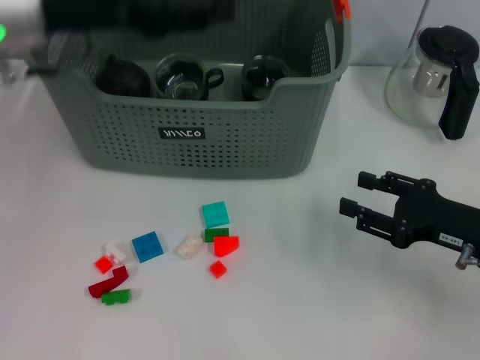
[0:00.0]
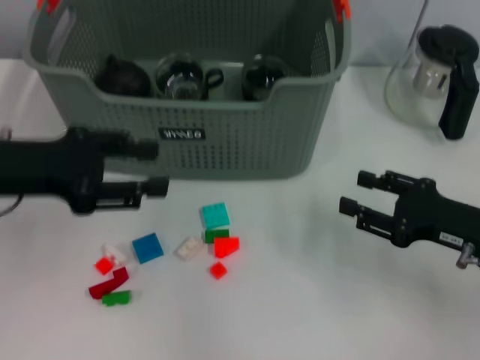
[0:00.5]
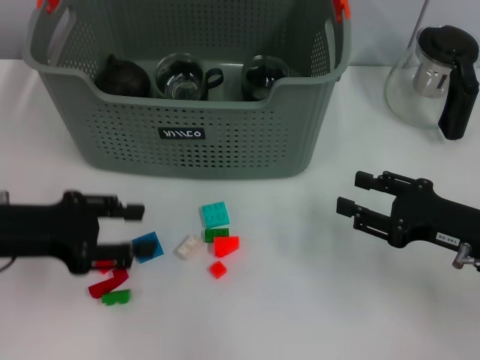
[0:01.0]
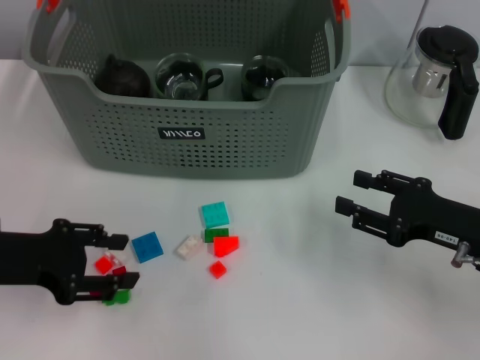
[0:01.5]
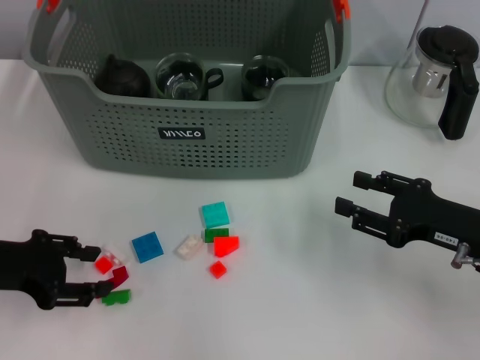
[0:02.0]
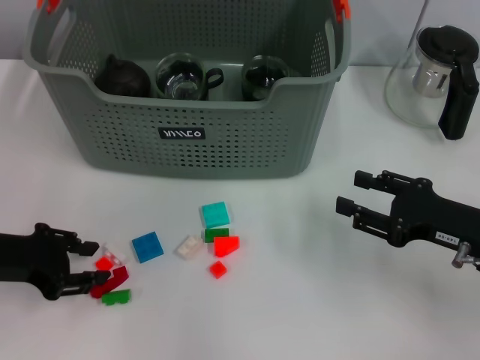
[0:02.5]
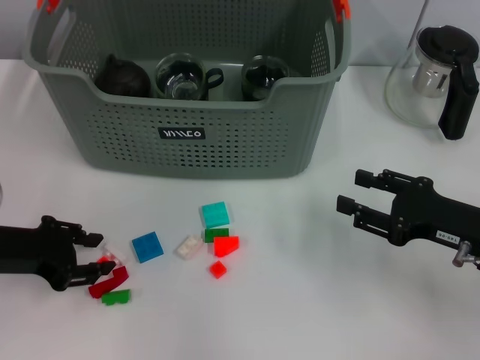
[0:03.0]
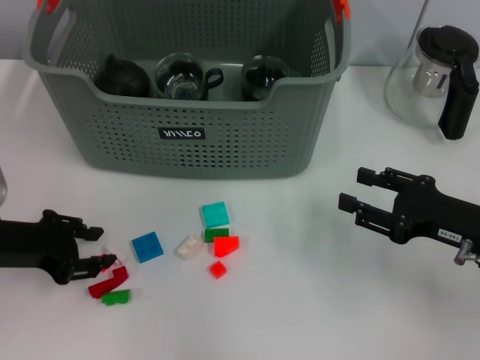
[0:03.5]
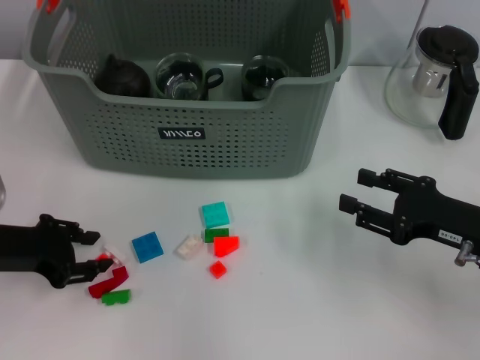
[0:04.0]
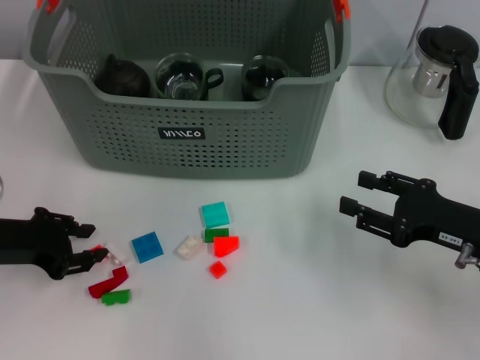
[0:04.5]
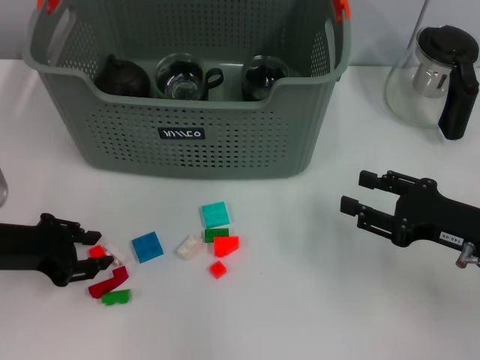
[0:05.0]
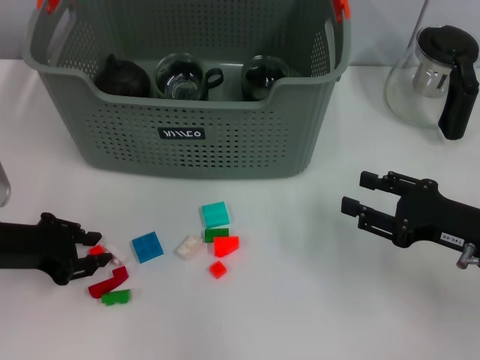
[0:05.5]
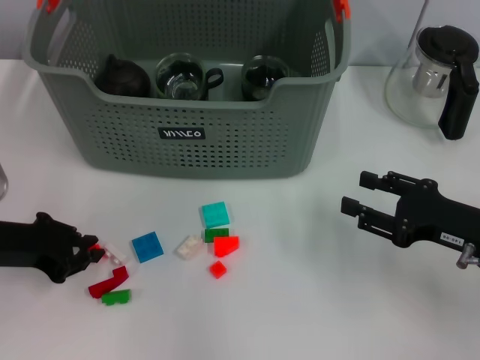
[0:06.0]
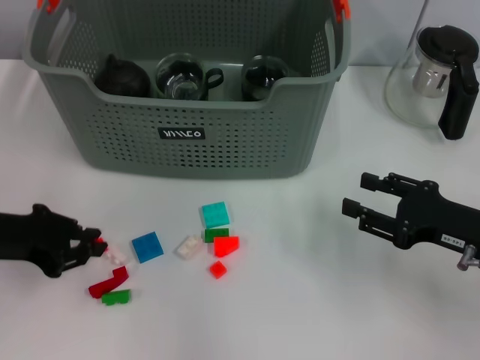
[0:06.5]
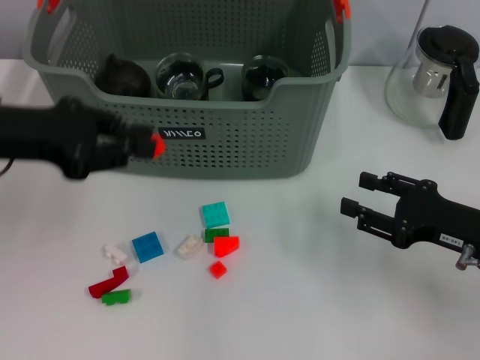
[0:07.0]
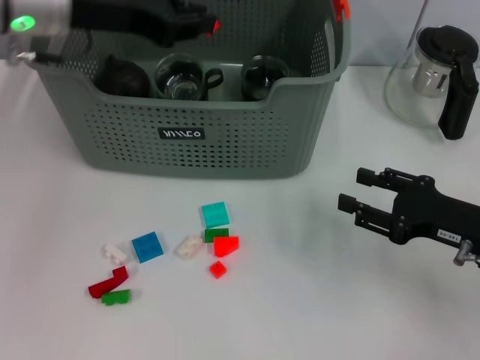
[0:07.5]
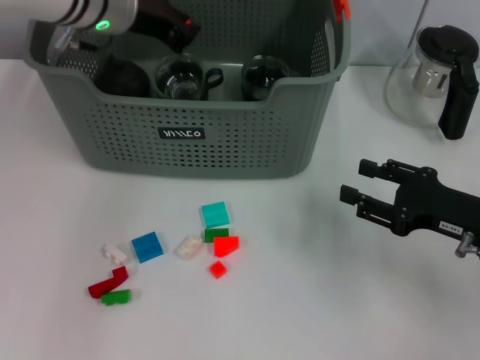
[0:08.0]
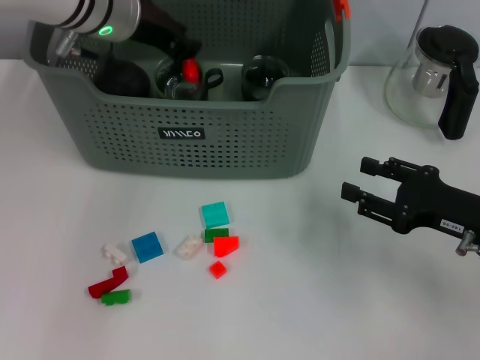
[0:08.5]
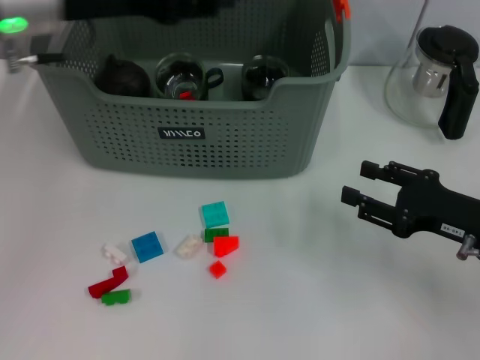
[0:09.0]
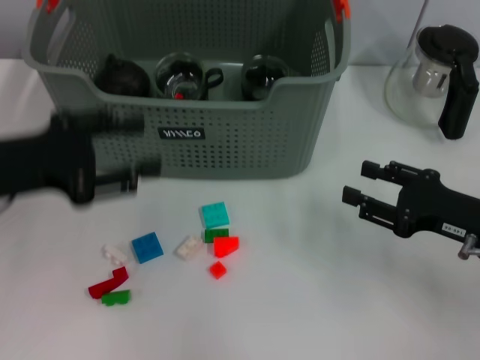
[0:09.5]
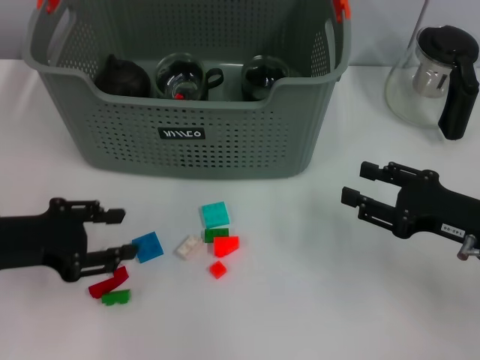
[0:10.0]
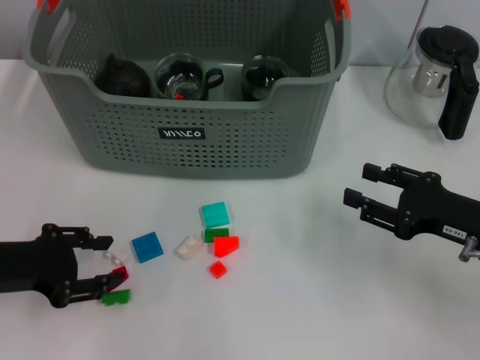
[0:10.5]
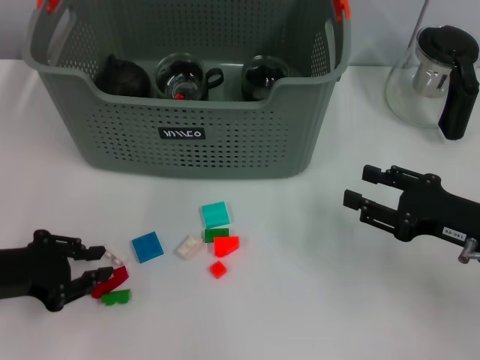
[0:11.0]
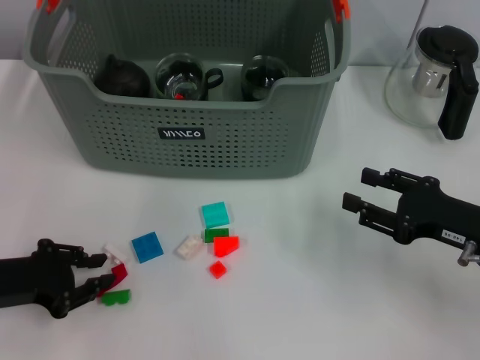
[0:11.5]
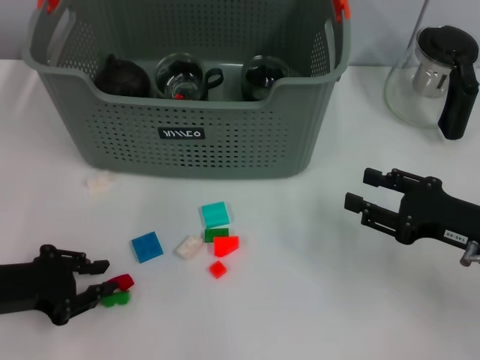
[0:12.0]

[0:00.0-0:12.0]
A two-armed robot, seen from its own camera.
Task of the whole recording: pick up the teacup on the table and place it into the storage bin, pick up the block on the table and place it into the storage bin.
Step, 0:00.0 to 0:05.5: Grasp the orange block with left gripper.
Step, 0:06.0 to 0:08.5: Place the orange block in the storage box with left gripper.
0:00.0 to 0:02.0: The left gripper shifts roughly 20 cm downward, backward and to the left.
0:02.0 to 0:04.0: The grippers stay close to where they were, moving slightly.
0:04.0 to 0:06.0: The left gripper closes its fingers.
0:06.0 to 0:08.0: The left gripper goes approximately 25 cm forward, to the right and upward.
0:08.0 to 0:10.0: The left gripper moves backward, to the left and downward, some 25 cm, and opens its fingers.
0:10.0 to 0:12.0: The left gripper ends up some 5 cm from where it was.

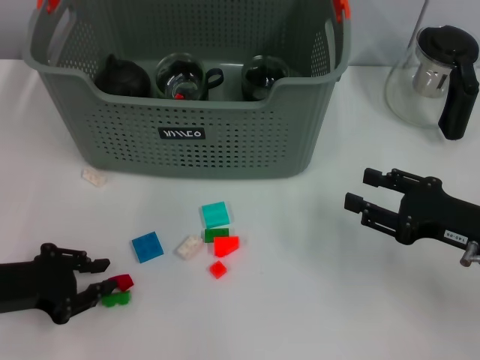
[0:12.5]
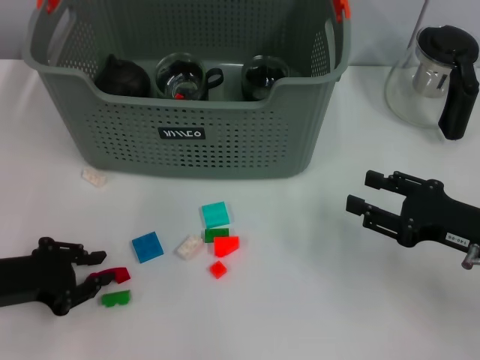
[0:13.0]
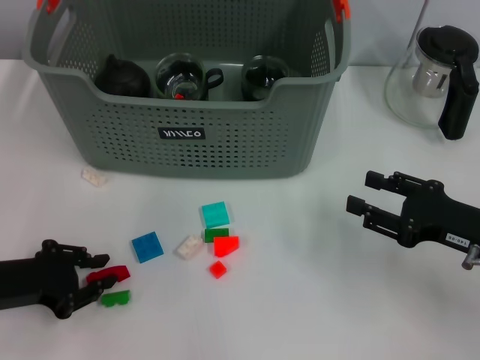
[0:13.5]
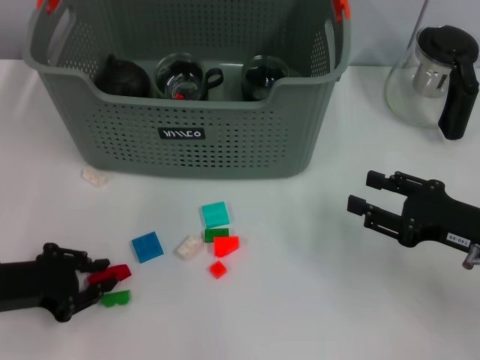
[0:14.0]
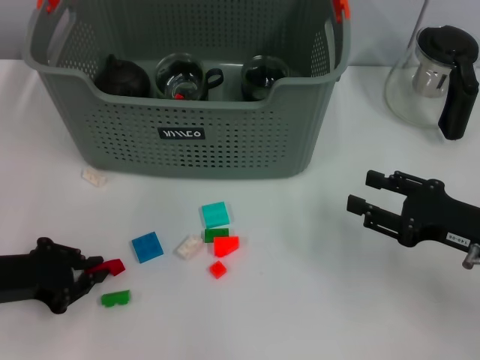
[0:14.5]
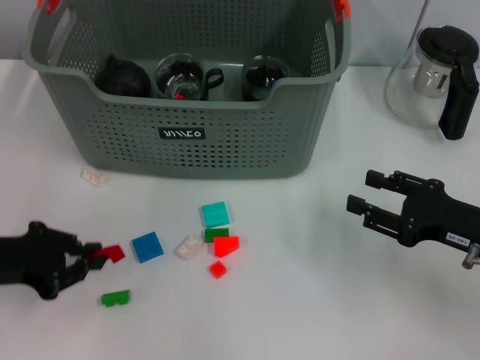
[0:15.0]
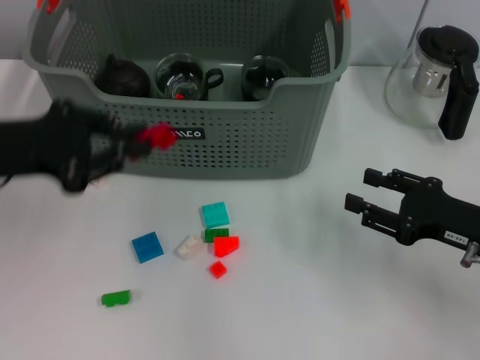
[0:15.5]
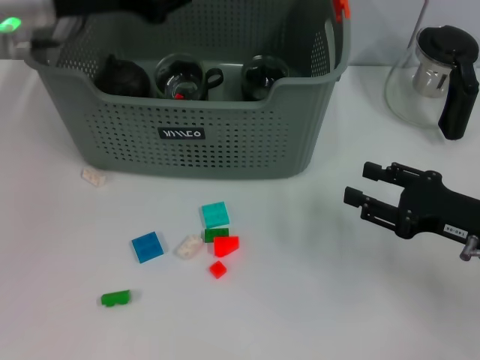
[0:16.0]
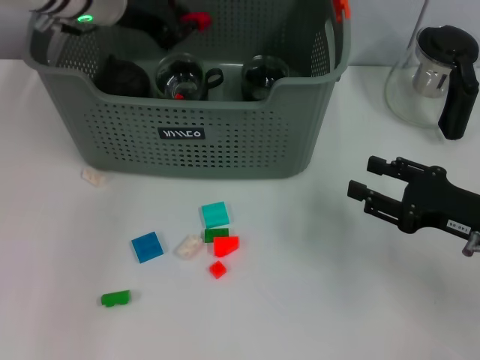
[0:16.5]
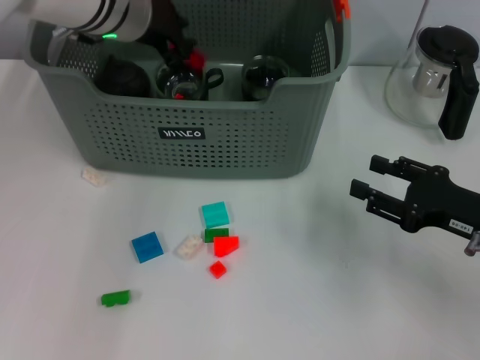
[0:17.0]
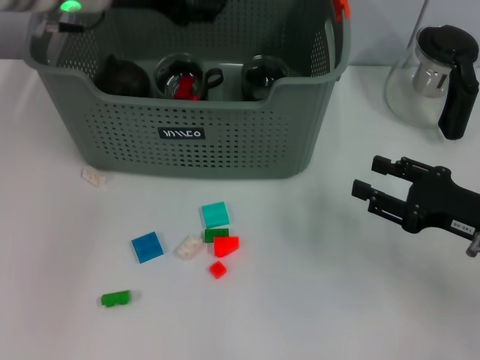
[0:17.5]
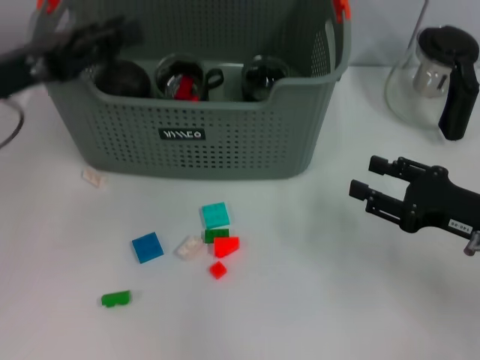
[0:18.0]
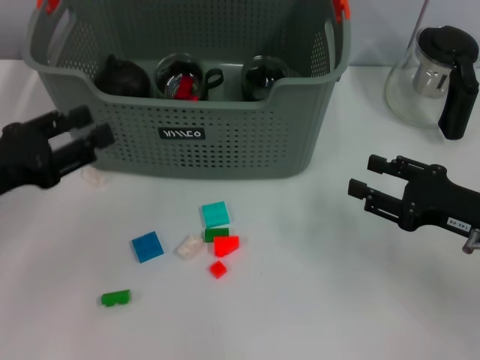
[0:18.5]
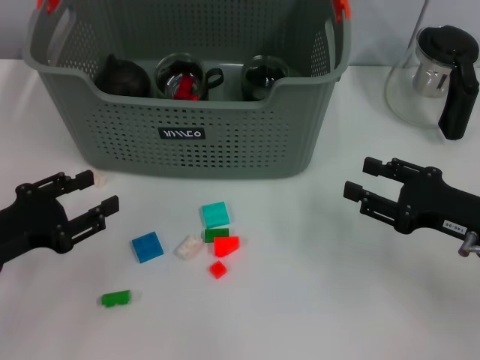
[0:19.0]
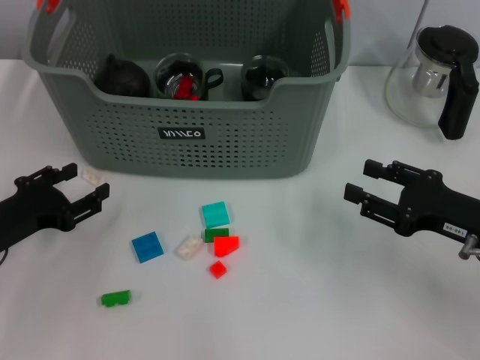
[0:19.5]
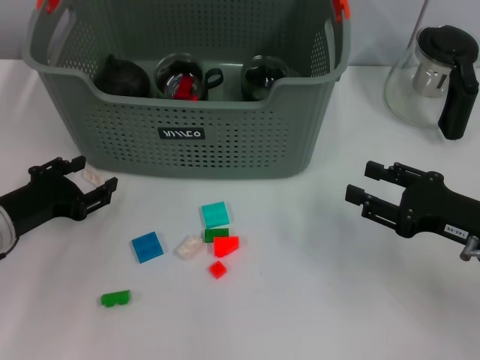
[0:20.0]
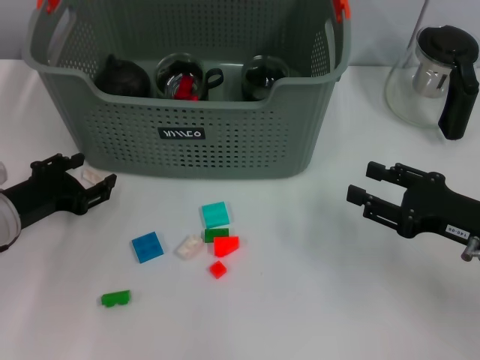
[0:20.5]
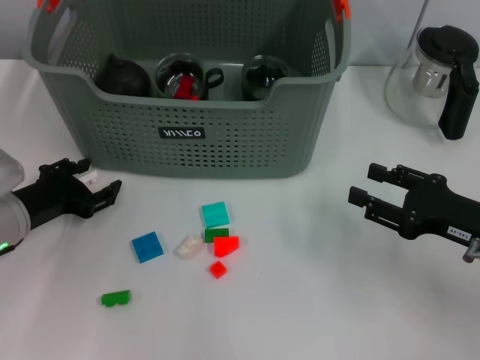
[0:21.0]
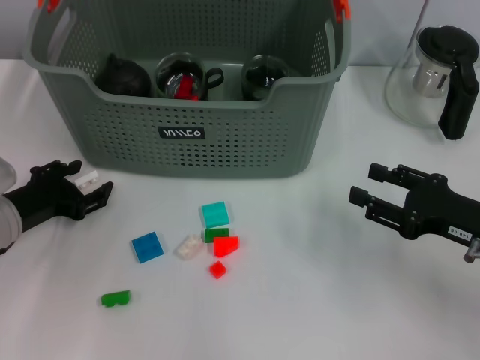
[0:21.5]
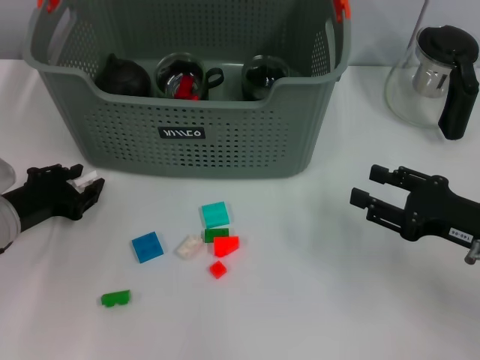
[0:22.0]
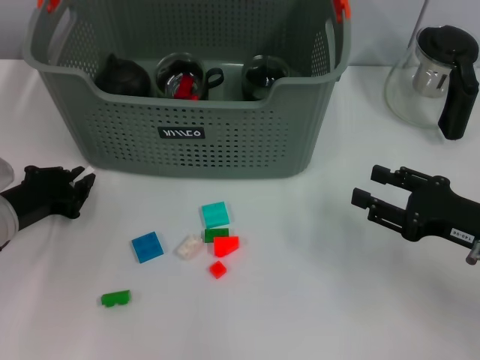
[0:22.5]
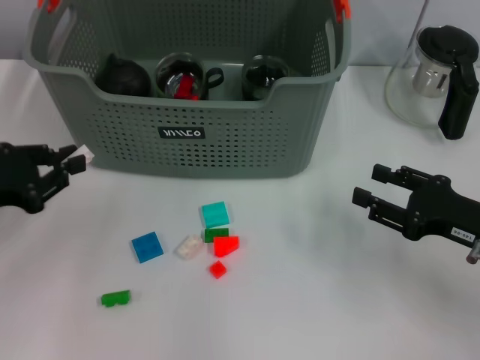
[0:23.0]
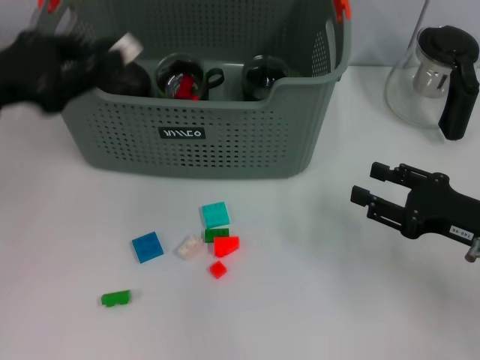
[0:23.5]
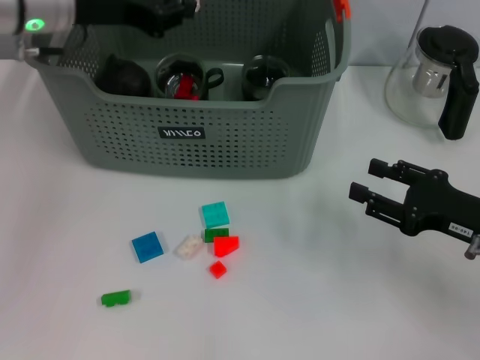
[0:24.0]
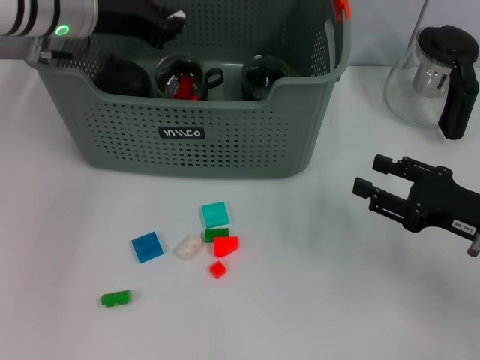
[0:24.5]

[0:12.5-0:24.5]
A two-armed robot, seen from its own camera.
Task of the whole recording: pick up the teacup on the table and place it into the storage bin, pick up the block on the table and place it into the storage bin.
Step, 0:12.5 to 0:14.5: Grasp the red block with left gripper.
Step, 0:15.0 to 0:17.0: Place the red block in the storage box with left gripper.
Step, 0:17.5 to 0:22.0: Grasp the white block with left gripper.
0:12.5 to 0:14.5: There are only small adjustments of the grippers.
0:14.5 to 0:16.5: The left gripper is displaced forward, upward and to the right by about 30 cm.
0:16.5 to 0:18.5: The left gripper travels backward, to the left and downward by roughly 25 cm, and opens its fingers.
0:18.5 to 0:20.5: The left gripper moves downward, about 10 cm.
0:20.5 to 0:22.5: The left gripper closes.
0:22.5 to 0:24.5: The left gripper moves upward, forward and to the right, approximately 25 cm.

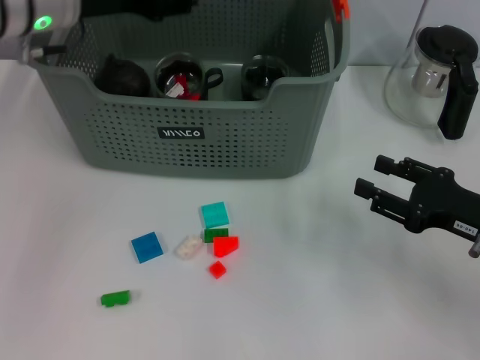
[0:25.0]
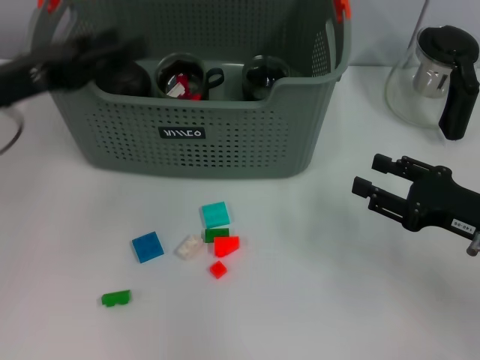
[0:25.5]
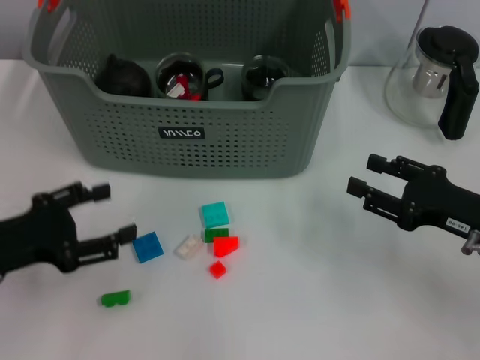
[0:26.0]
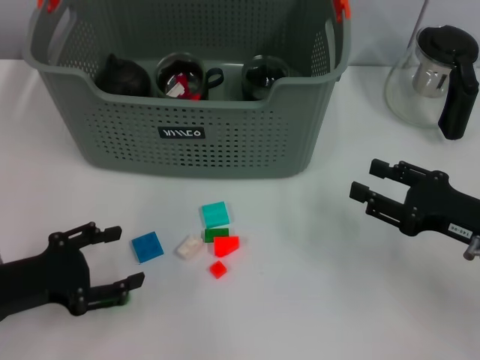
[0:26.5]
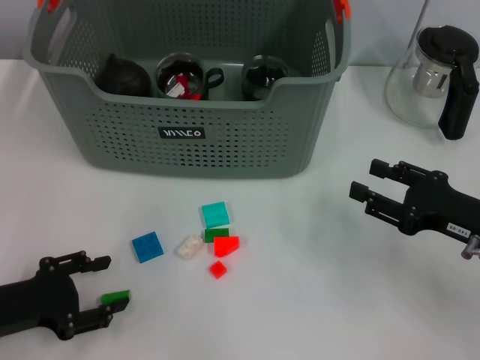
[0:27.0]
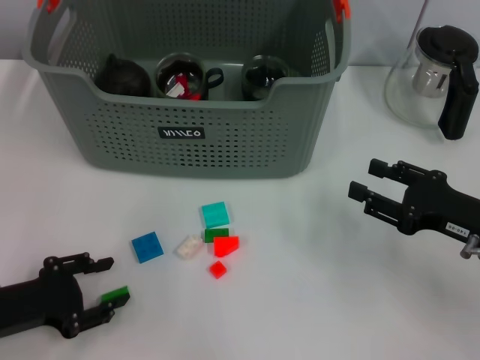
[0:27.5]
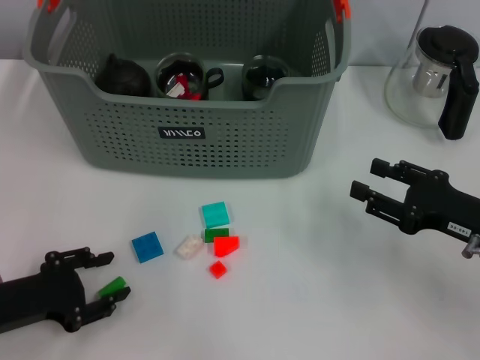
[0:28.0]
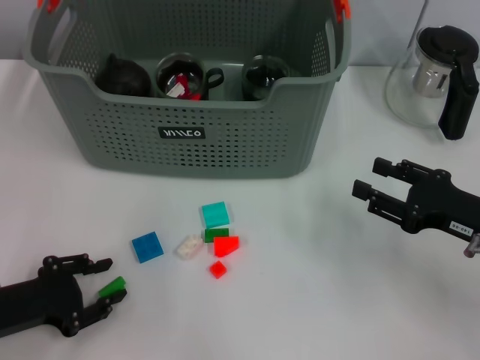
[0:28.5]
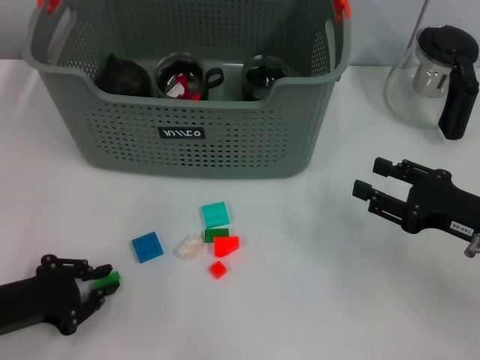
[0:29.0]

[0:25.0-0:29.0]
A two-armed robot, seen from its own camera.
Task of the whole recording: pick up the teacup on the table and place it into the storage bin, pick up the block on the table and place it into the storage bin.
0:25.0 to 0:27.0: The left gripper shifts some 30 cm backward, downward and to the left.
0:27.0 to 0:29.0: The left gripper closes.